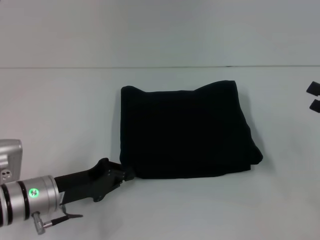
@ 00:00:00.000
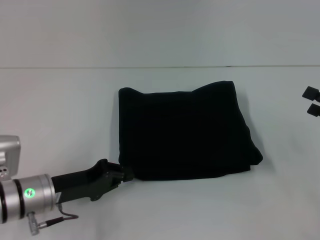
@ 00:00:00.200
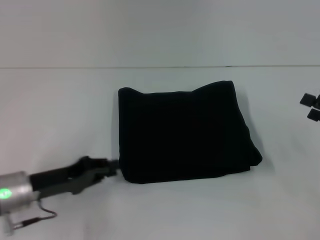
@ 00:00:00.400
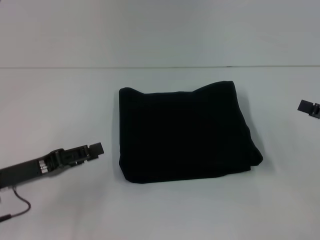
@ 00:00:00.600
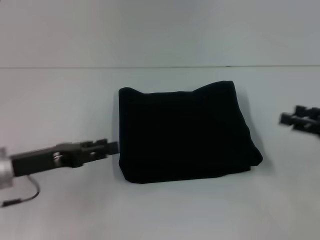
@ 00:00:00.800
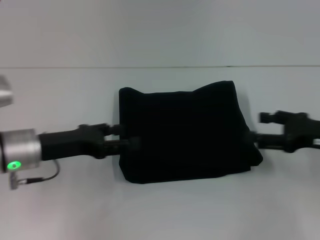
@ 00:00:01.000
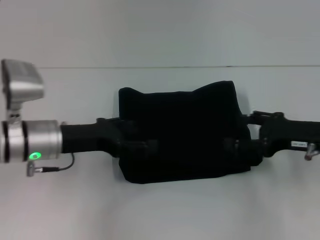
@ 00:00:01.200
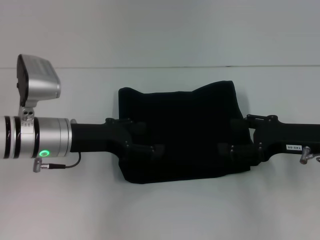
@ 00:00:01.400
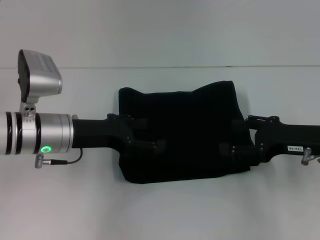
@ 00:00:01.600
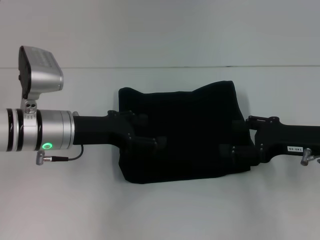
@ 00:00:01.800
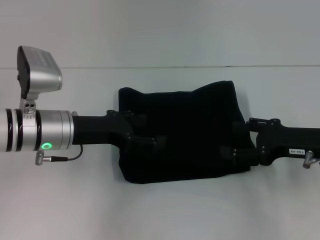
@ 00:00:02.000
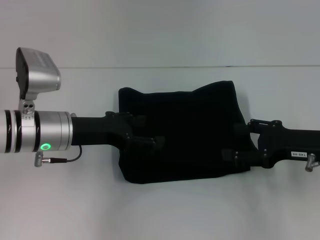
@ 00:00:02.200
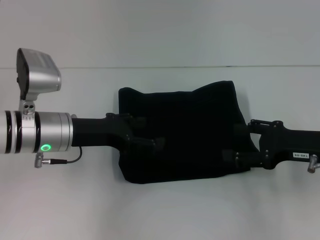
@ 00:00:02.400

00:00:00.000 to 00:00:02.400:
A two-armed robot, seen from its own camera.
00:00:00.000 to 00:00:01.200: The left gripper goes roughly 10 cm upward and forward, and opens, while the right gripper goes about 10 cm to the left.
00:00:01.200 to 00:00:02.400: The grippers stay close to where they were, moving slightly.
